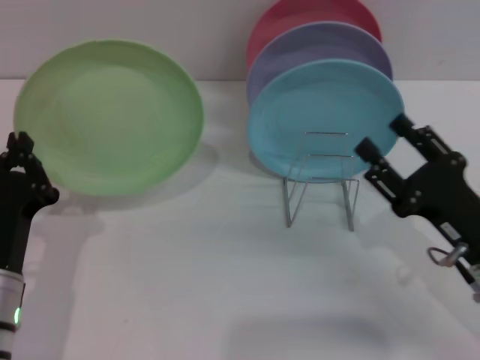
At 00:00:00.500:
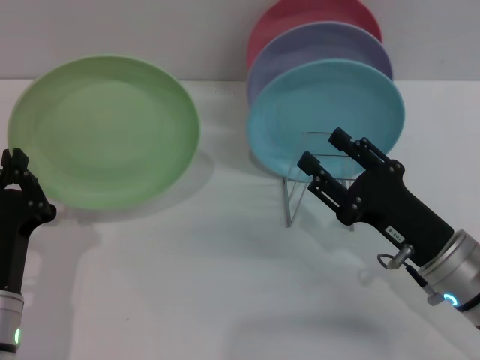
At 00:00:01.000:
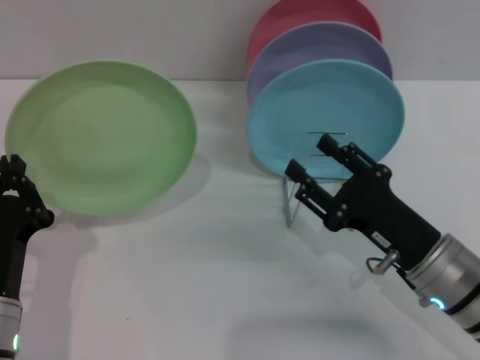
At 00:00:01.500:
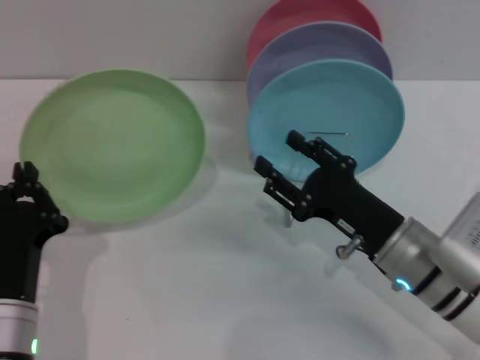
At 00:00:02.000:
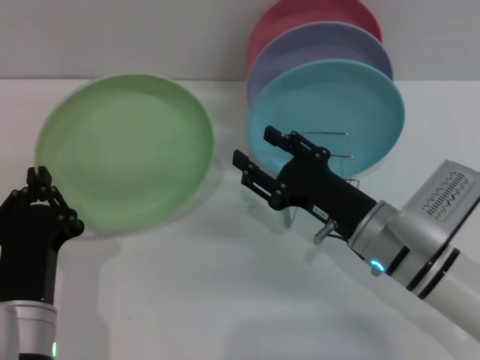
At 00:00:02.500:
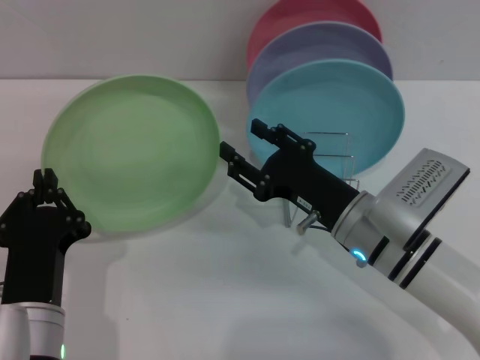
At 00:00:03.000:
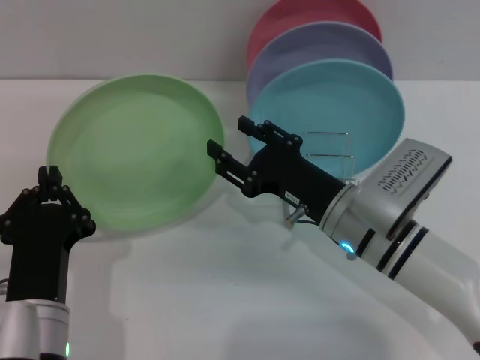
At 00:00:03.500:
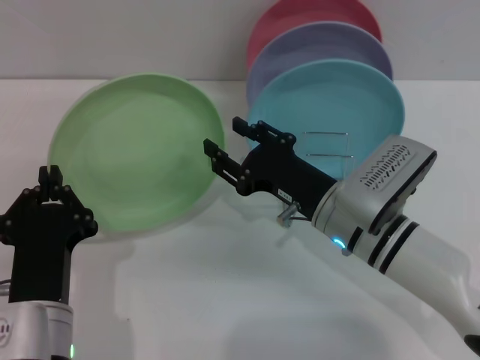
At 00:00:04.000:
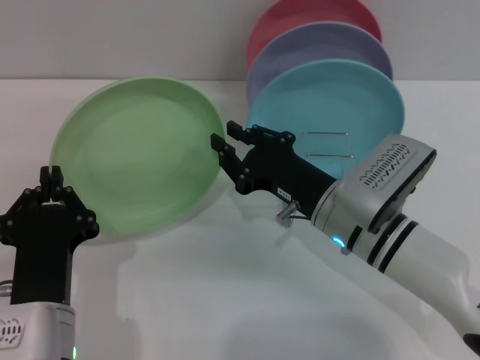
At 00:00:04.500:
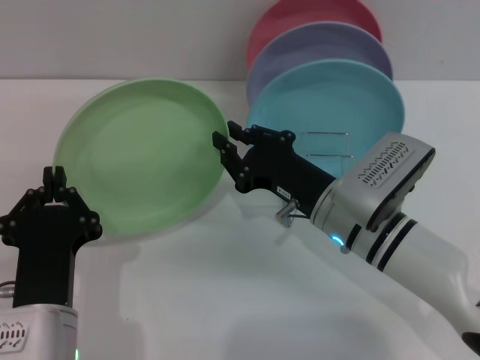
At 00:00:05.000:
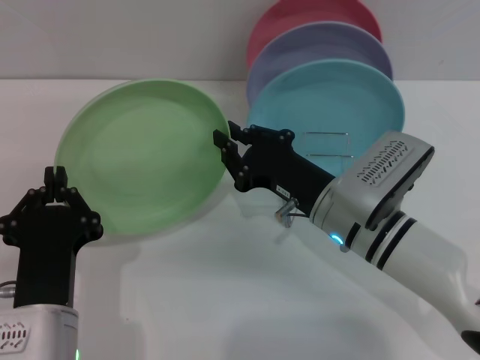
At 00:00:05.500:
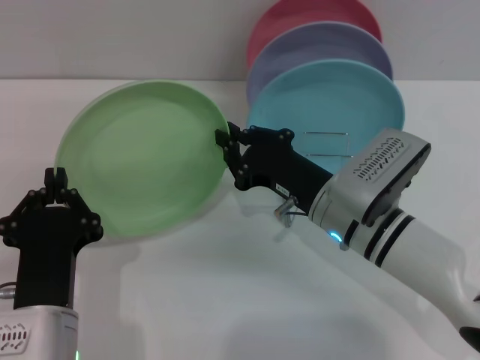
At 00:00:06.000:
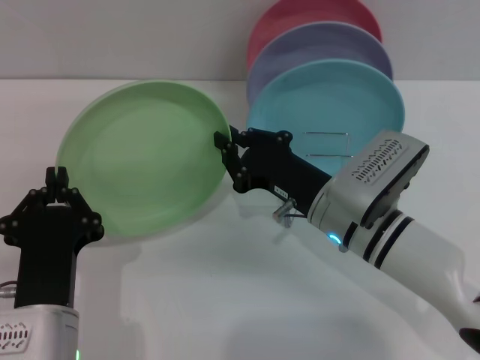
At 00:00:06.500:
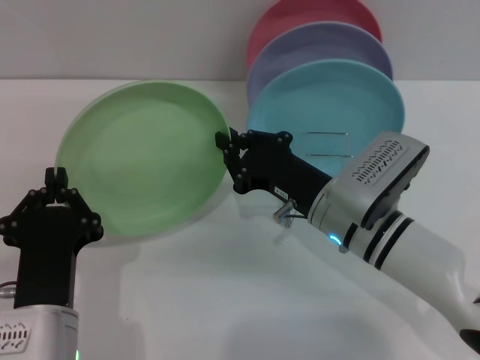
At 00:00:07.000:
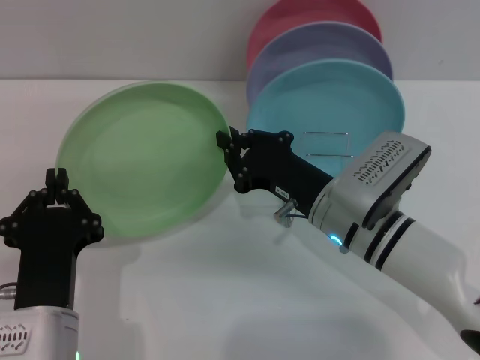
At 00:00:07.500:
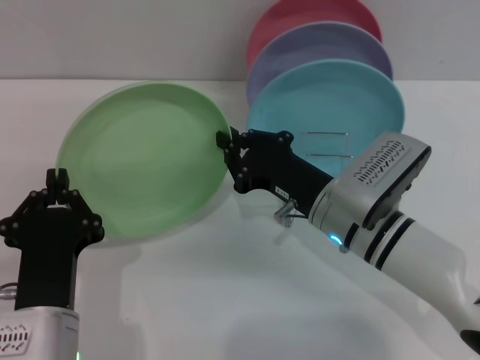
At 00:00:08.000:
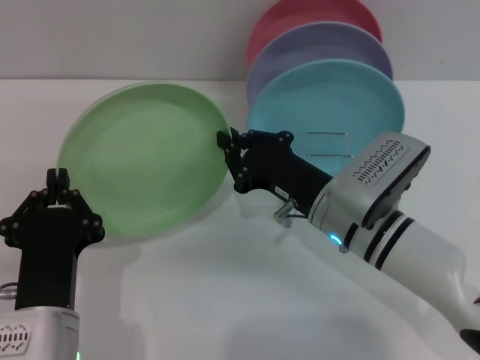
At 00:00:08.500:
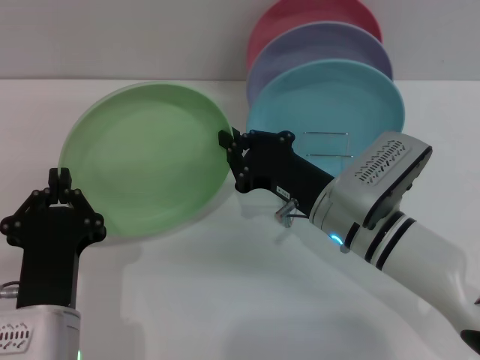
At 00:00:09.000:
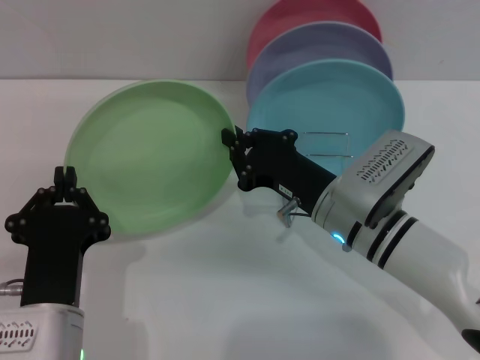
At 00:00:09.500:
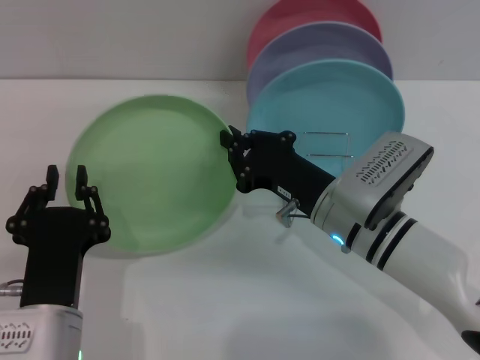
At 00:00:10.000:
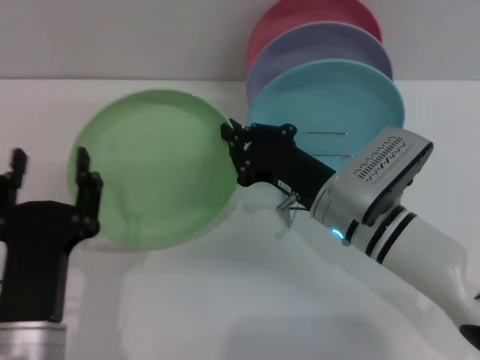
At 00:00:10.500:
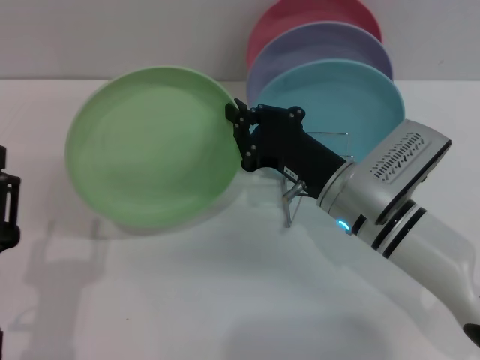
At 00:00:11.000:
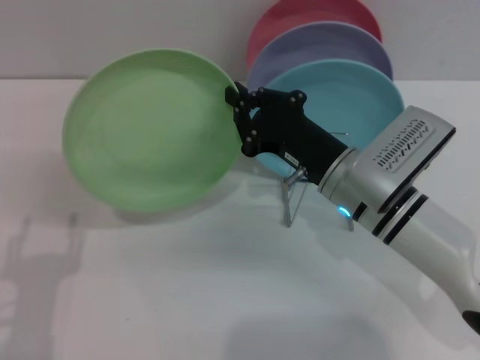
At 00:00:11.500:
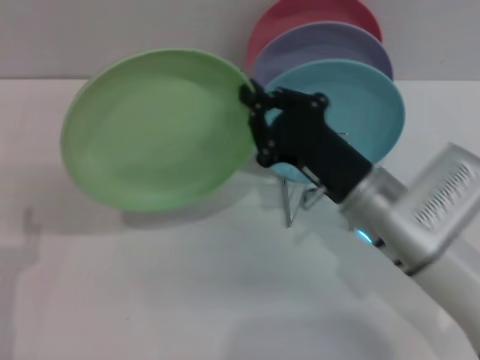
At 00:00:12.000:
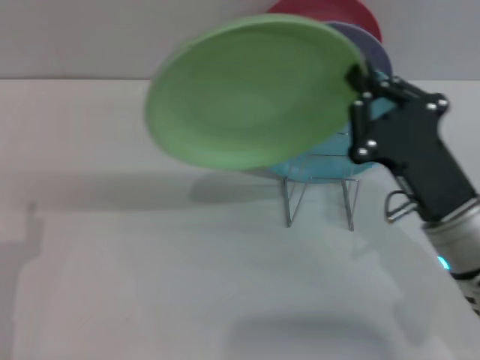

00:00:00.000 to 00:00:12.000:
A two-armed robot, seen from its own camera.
Task of the whole recording: Grip the plate with one hand, pass it to the other, then set it on the shelf.
Step, 00:00:00.000 to 00:00:09.500: Pass the plate from the left gripper to the right gripper.
00:00:00.000 to 00:00:02.000: The right gripper travels to the left and forward by about 10 cm. The left gripper ends up roughly 5 cm from where it was.
00:00:02.000 to 00:00:04.000: The right gripper closes its fingers.
00:00:04.000 to 00:00:08.000: Neither gripper changes place.
00:00:08.000 to 00:00:10.000: The left gripper opens its fingers.
00:00:10.000 to 00:00:12.000: The left gripper travels to the left by some 10 cm; the right gripper goes roughly 10 cm to the right and backward.

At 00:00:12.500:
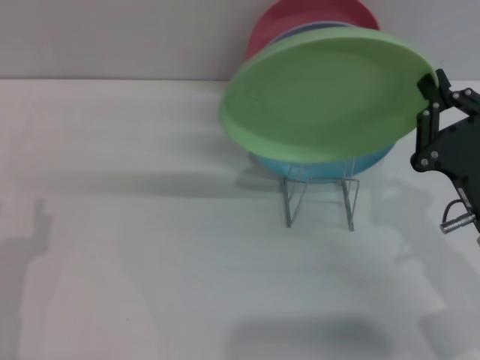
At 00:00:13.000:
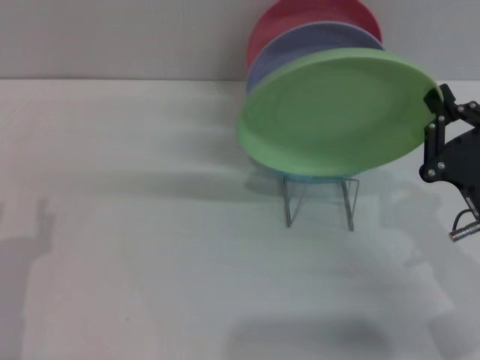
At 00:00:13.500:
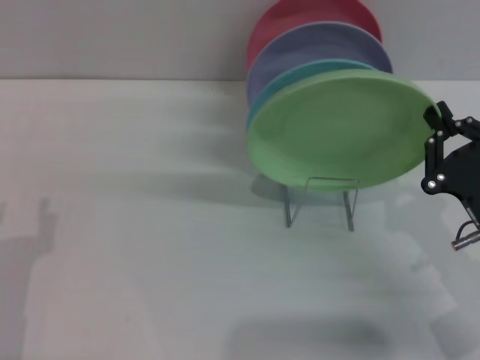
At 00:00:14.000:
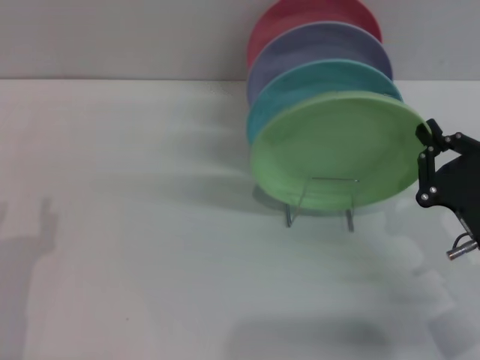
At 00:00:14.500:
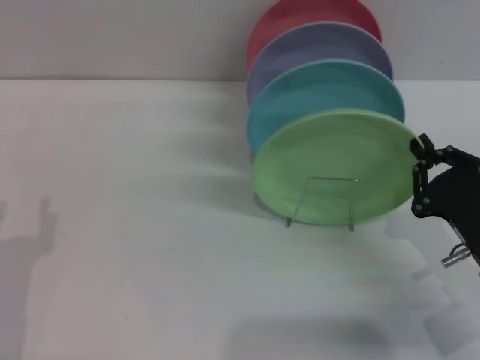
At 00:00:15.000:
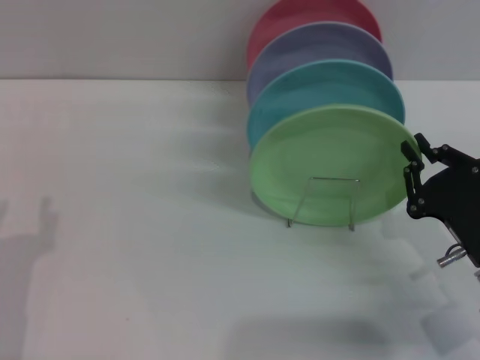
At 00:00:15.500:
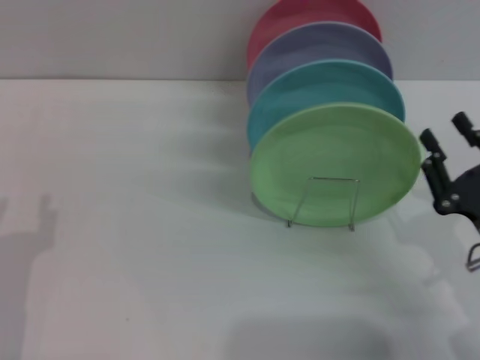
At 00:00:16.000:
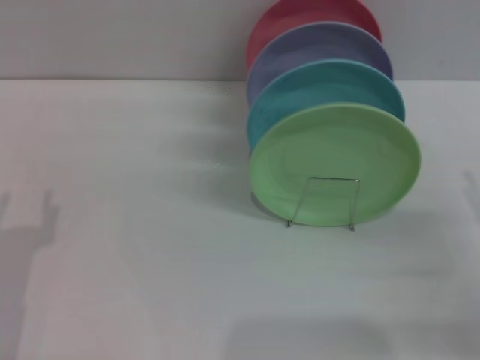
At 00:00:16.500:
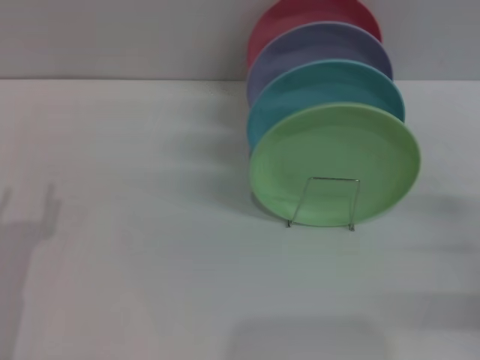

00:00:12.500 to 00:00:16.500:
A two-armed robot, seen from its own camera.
Task of the whole recording: Grip the plate with one hand, pass it to the other, then set it on the shelf.
Step, 00:00:12.500 to 00:00:15.000: Place the plate on the shelf with the right gripper.
00:00:12.500 to 00:00:14.500: The grippers make only small movements.
00:00:14.500 to 00:00:16.500: The right gripper moves to the right, about 10 cm, and opens.
